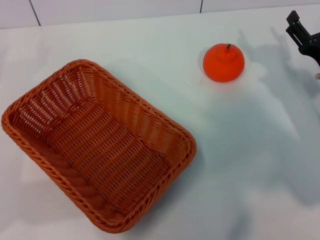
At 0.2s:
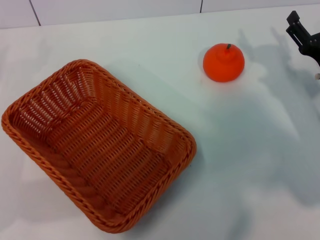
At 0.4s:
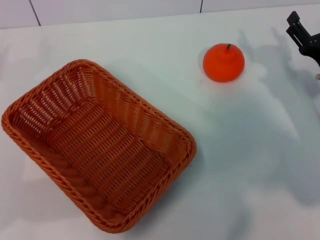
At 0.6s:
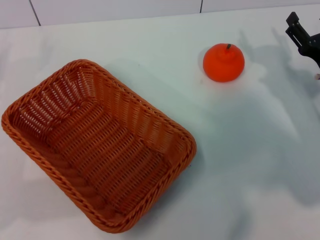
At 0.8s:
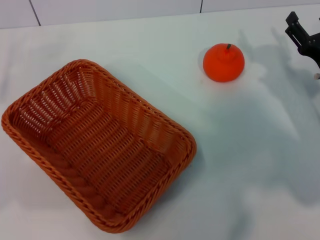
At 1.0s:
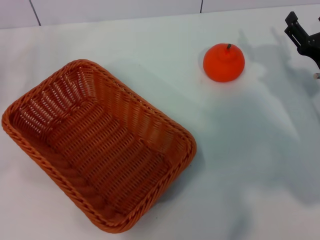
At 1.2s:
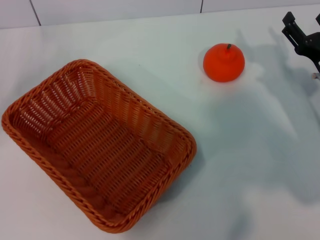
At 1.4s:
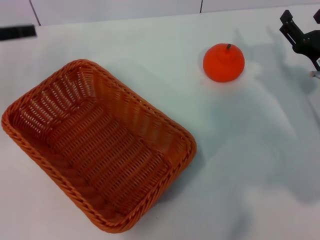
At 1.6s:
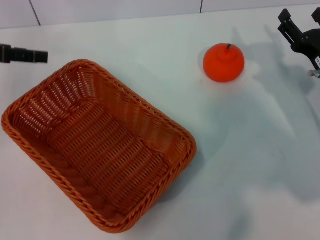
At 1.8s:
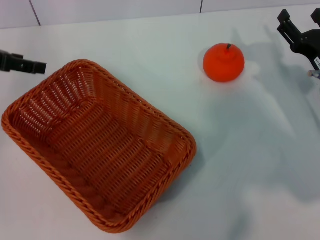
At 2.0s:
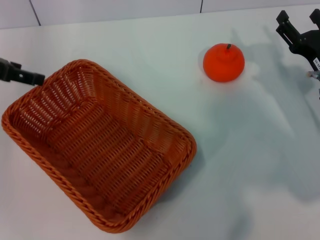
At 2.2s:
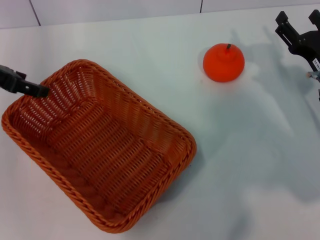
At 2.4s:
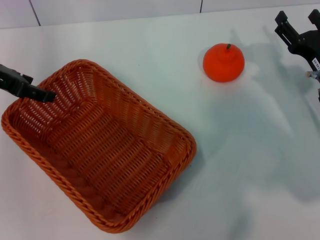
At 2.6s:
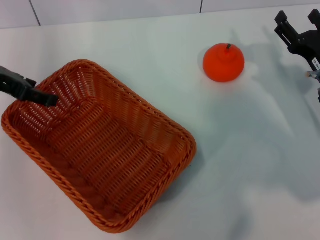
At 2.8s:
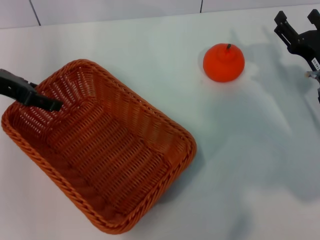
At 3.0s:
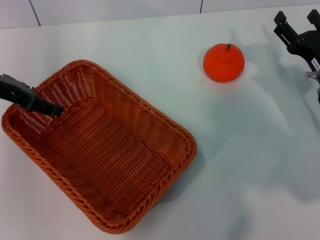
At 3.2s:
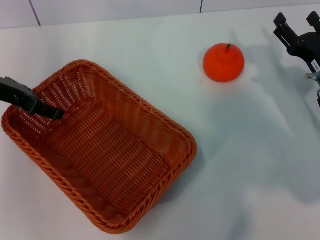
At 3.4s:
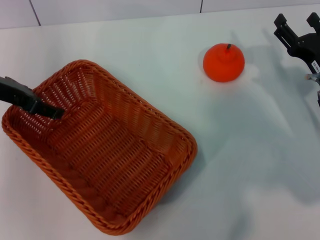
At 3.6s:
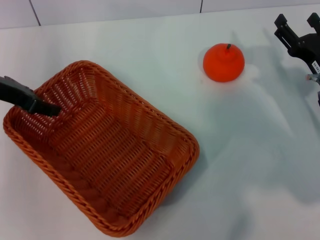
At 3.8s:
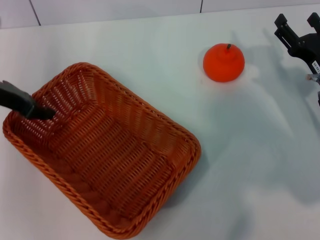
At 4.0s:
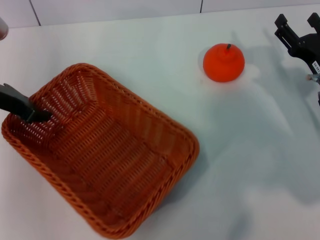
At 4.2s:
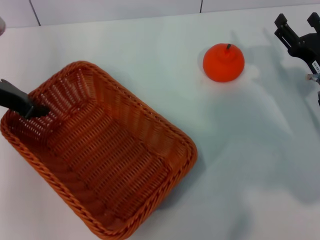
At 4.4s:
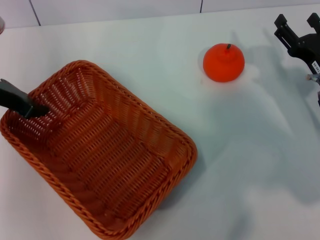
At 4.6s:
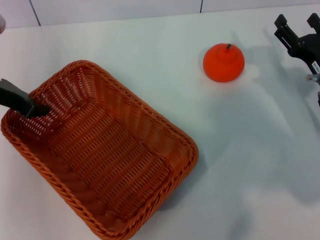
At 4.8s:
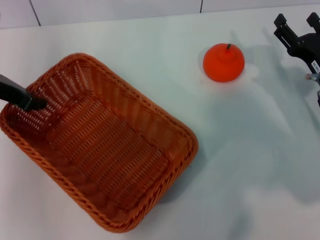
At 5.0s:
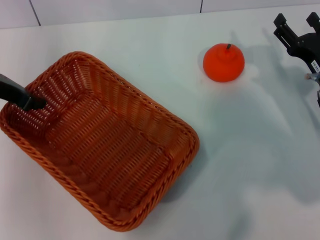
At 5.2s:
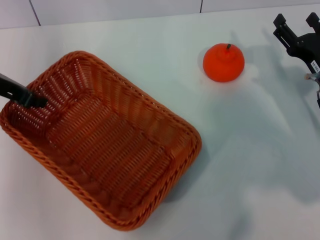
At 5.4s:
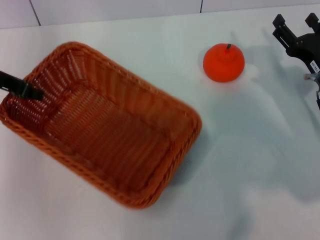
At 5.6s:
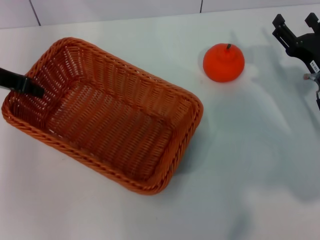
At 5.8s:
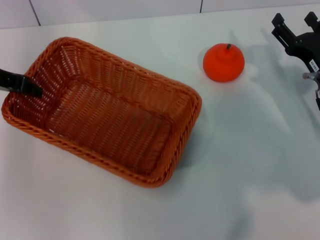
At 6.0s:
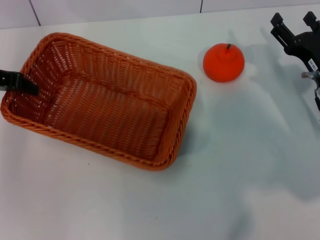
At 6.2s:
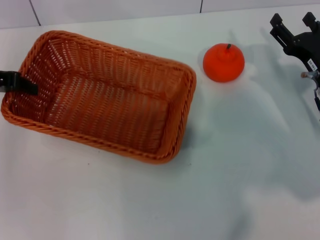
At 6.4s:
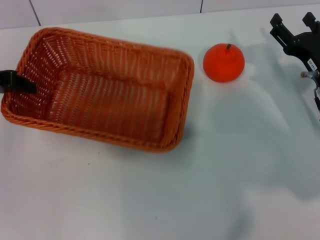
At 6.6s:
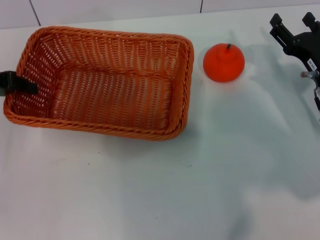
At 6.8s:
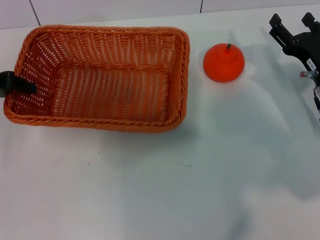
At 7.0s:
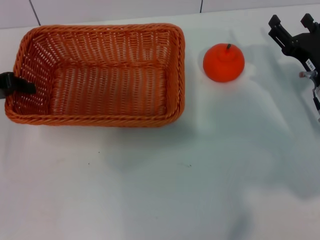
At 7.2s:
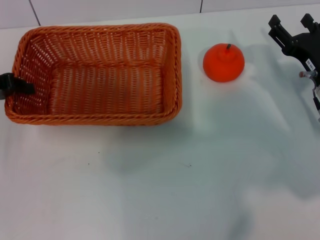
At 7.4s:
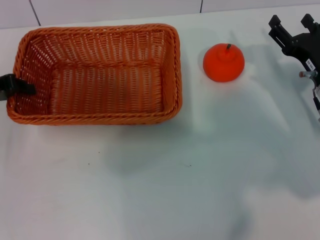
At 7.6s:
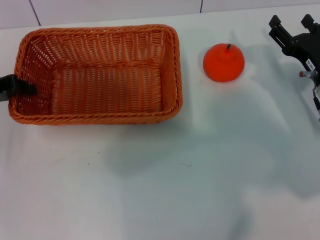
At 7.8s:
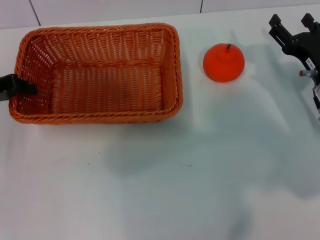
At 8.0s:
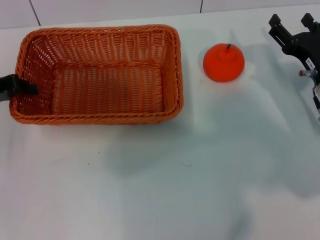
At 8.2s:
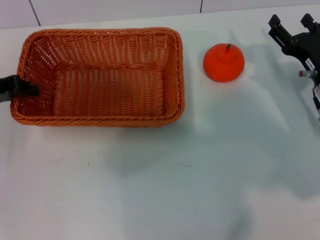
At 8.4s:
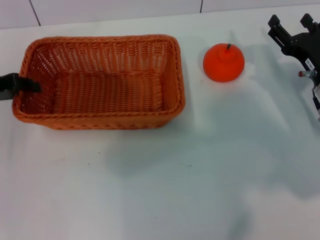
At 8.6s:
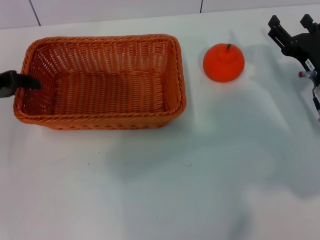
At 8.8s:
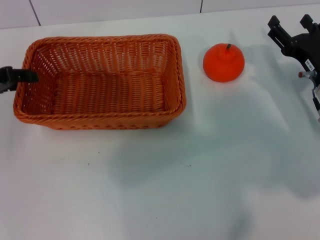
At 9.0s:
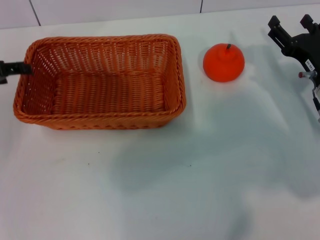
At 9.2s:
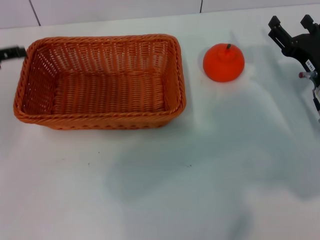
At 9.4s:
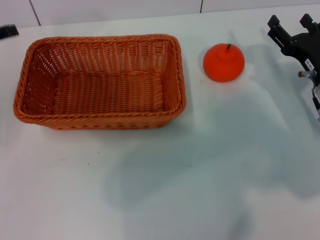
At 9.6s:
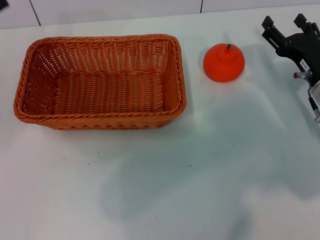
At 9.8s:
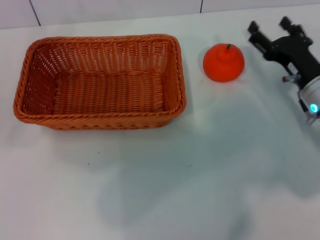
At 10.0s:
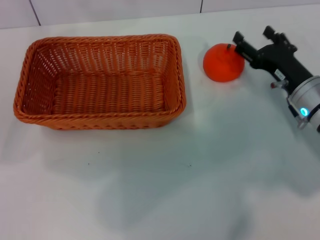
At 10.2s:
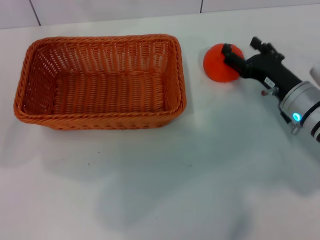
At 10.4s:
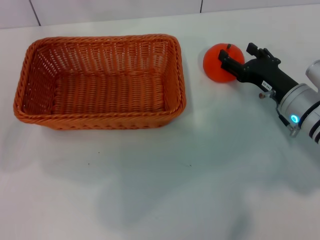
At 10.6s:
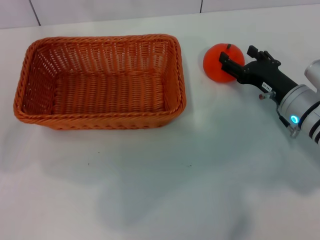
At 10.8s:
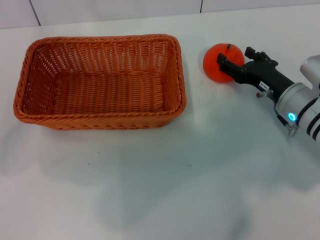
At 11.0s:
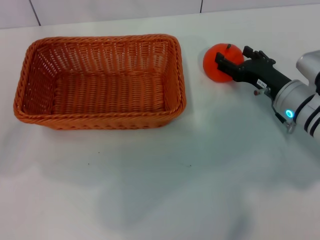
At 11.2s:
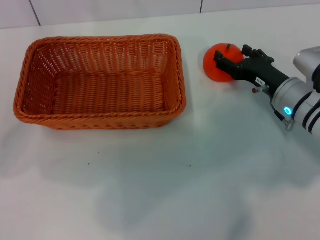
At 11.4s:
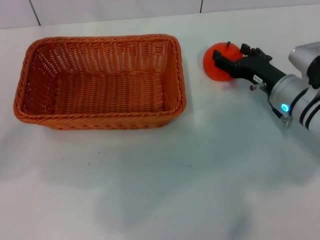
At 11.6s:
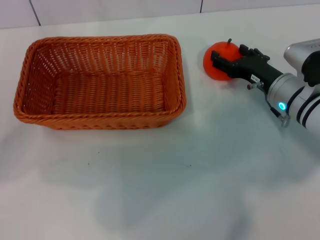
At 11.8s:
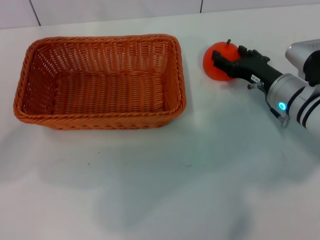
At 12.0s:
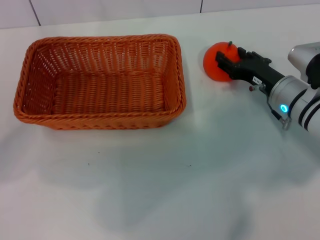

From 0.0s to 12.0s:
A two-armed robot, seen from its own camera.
Task of the whole recording: the left gripper pick up the yellow basket and place it horizontally in the middle of the table, the right gripper pick up the orange and place it into the yellow basket.
Step, from 0.0s to 5.0s: Pick up the light basket with the left gripper.
Step, from 5.2s to 8.6s: Place the light basket in the center of view with the left gripper.
From 0.0s to 1.6s: The left gripper travels upward and forward by about 15 cm.
From 1.6s to 3.0s: The left gripper shifts about 5 cm to the right.
From 3.0s to 4.4s: The left gripper closes up.
From 6.0s to 7.6s: The left gripper ends up approximately 5 cm from where it was.
From 7.6s to 9.0s: The left gripper opens.
From 10.4s to 12.0s: The grippers move only a little.

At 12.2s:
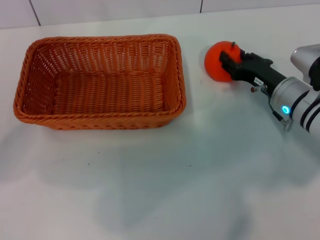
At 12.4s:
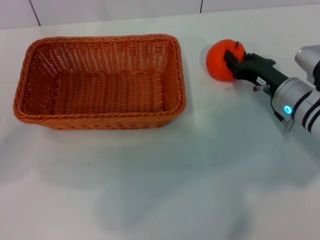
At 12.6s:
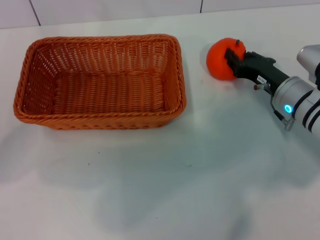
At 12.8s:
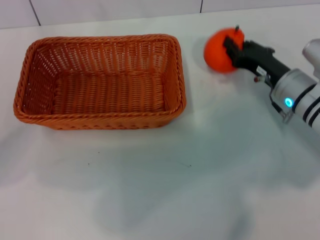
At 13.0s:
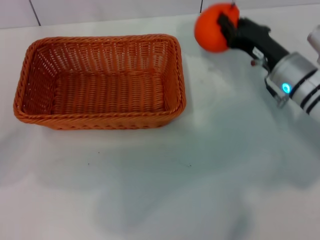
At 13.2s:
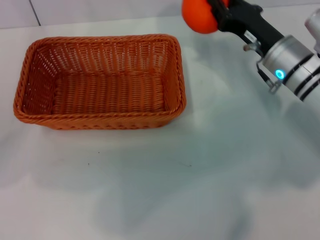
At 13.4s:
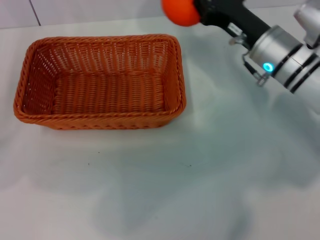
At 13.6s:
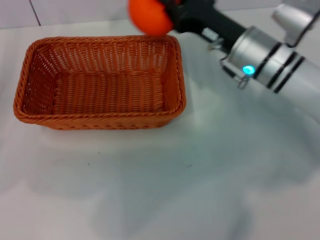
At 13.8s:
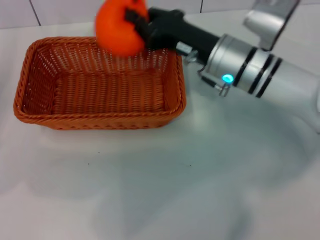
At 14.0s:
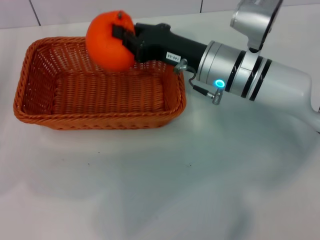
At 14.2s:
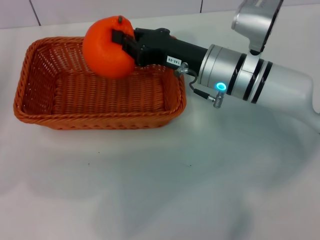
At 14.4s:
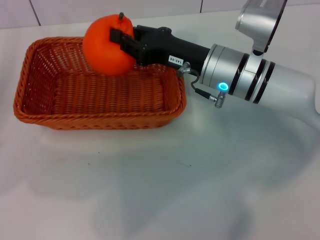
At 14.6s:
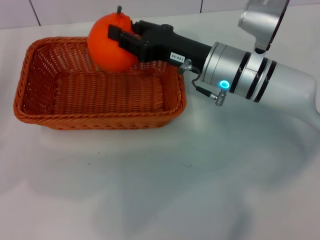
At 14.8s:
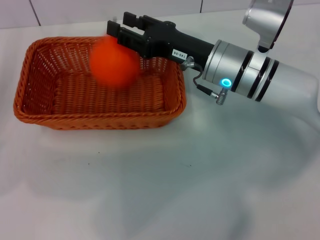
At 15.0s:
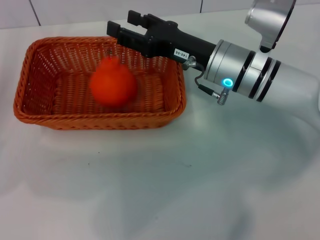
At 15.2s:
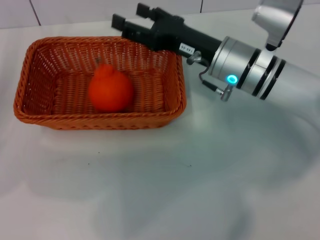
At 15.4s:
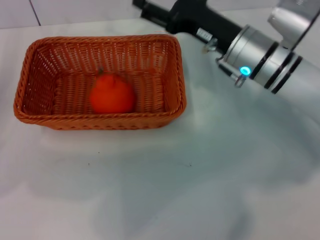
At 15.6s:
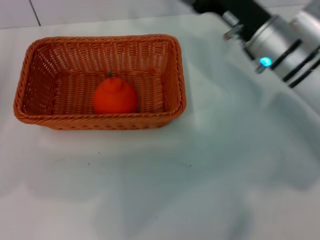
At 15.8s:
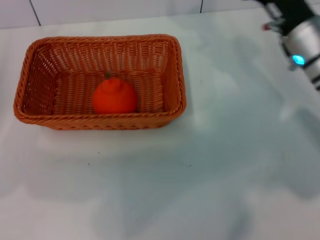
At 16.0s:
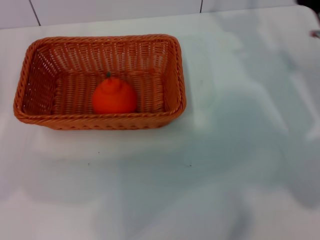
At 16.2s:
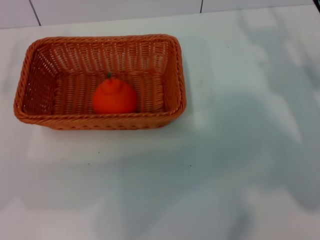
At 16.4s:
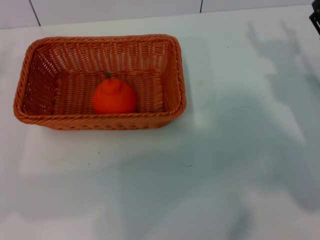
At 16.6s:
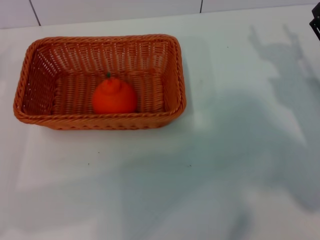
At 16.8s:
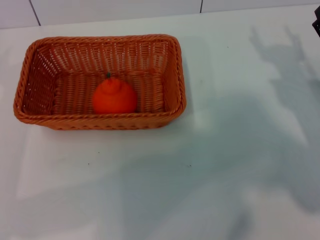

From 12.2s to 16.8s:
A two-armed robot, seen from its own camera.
Task of the whole recording: the left gripper pick up the yellow basket and place it horizontally in the middle of the table, the right gripper pick up the orange and place it into the yellow basket.
Step, from 13.0s to 14.8s: Place the orange into the light basket with the right gripper.
From 12.2s to 13.8s: The right gripper shifts about 15 cm to the left and upward, and closes up.
From 13.8s to 15.2s: The right gripper opens its fingers.
From 15.2s to 16.8s: The right gripper heads to the right and backward, covering roughly 20 cm, while the left gripper shifts by roughly 5 cm.

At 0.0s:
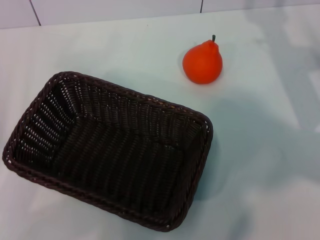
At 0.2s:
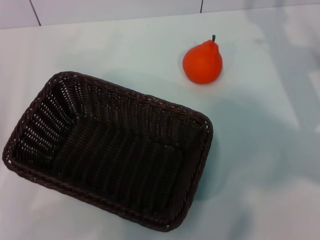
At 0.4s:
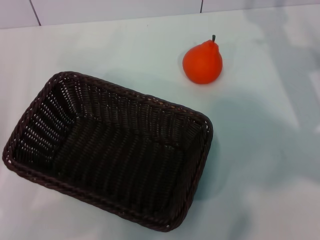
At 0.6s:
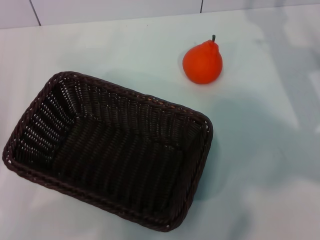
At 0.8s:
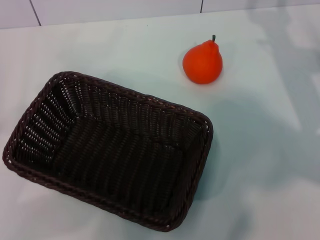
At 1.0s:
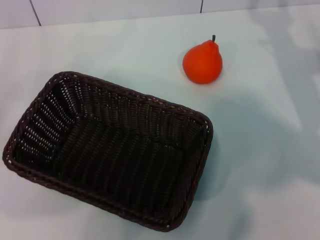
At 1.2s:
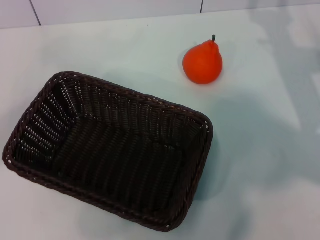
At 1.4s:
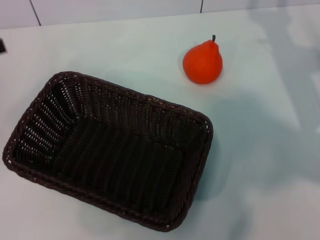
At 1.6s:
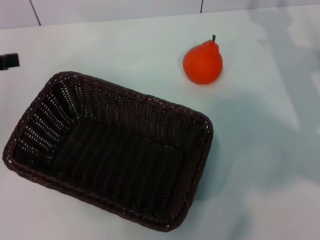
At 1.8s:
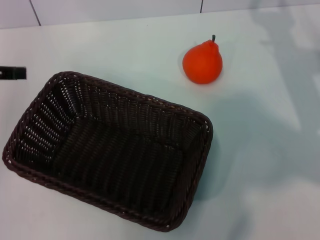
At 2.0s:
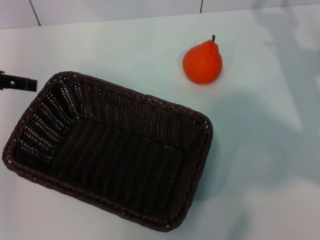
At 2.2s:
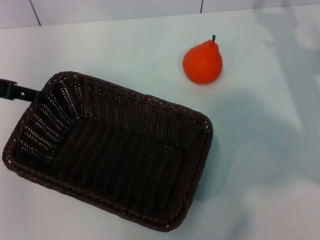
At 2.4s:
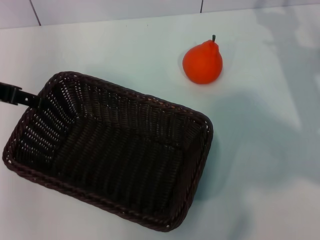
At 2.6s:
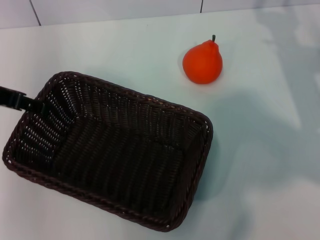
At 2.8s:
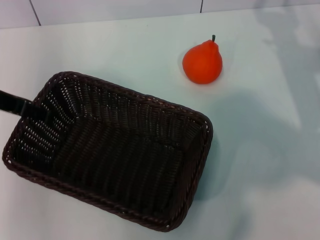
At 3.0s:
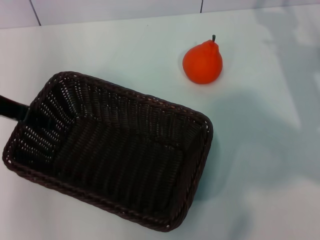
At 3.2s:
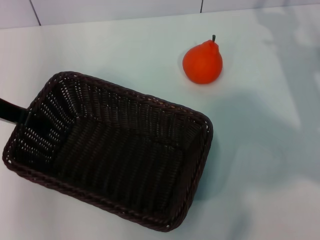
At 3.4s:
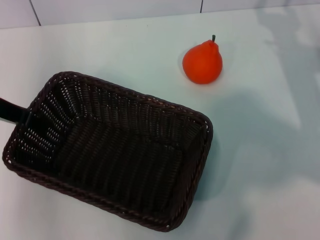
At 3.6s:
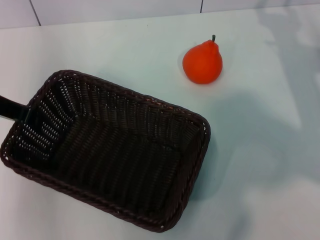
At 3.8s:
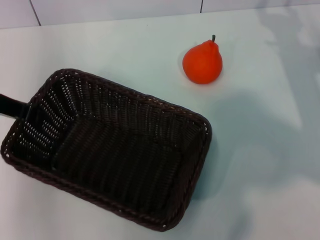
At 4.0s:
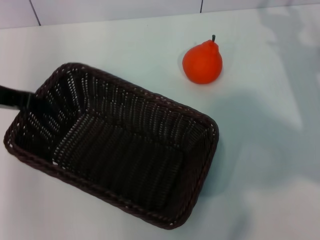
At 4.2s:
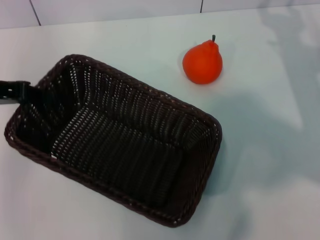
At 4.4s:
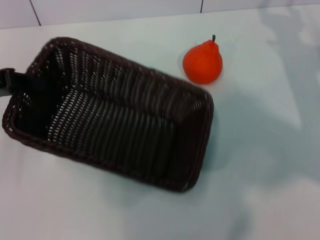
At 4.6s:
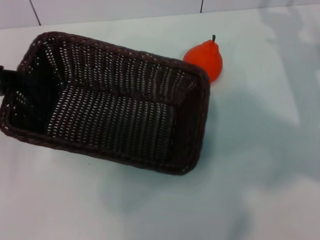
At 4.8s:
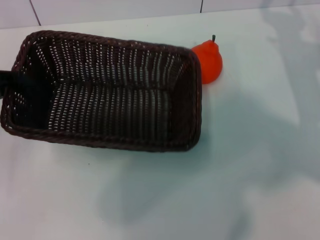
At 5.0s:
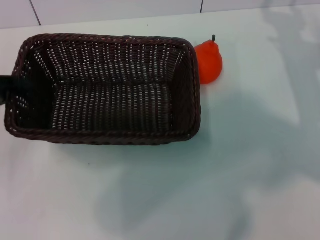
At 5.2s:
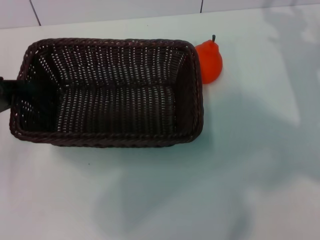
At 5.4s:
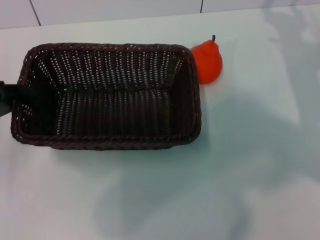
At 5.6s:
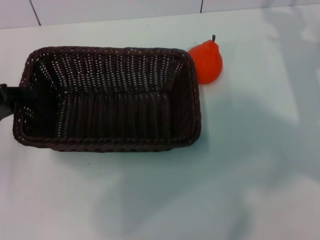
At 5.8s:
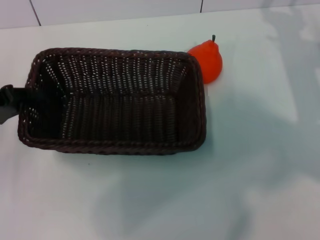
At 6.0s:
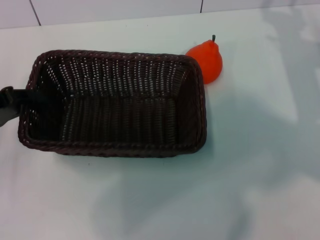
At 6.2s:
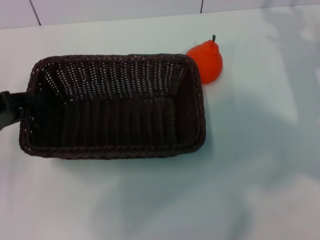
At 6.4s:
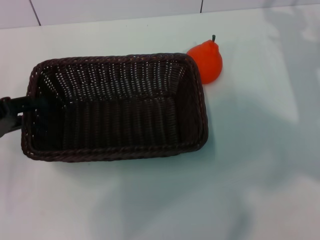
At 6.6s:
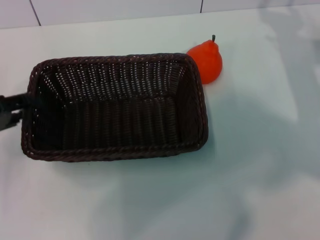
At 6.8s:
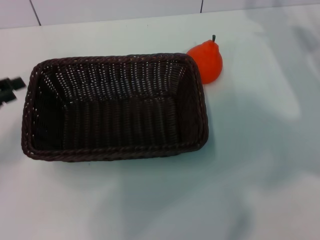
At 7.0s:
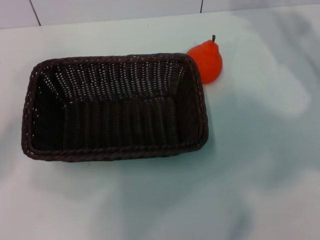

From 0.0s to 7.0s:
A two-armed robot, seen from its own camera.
Task of the whole recording: the left gripper pick up the black basket and place it horizontally in the middle of the table, the right gripper pick up the orange and place it into the black basket.
Step, from 0.0s to 4.2s: Pick up the dark basket with the left gripper.
Step, from 4.4s to 6.6s: Place the dark basket in the center of view with the left gripper.
From 1.4s to 2.8s: The left gripper goes approximately 10 cm to the right and forward.
From 2.8s to 4.2s: The left gripper closes.
From 4.2s to 5.6s: The left gripper travels downward by roughly 5 cm.
From 5.6s to 7.0s: The right gripper ends up some 5 cm from where it was; the left gripper opens.
